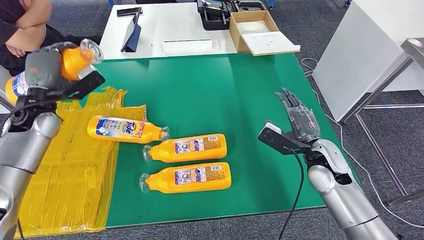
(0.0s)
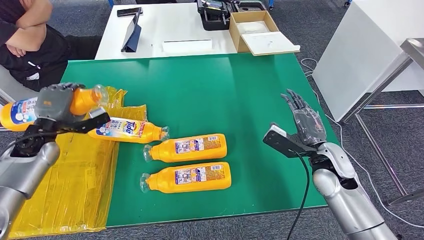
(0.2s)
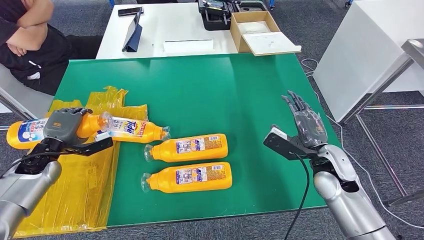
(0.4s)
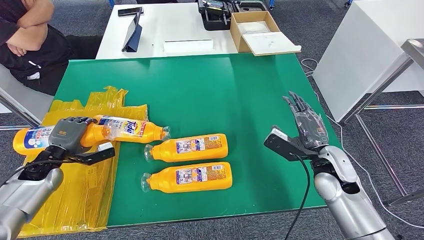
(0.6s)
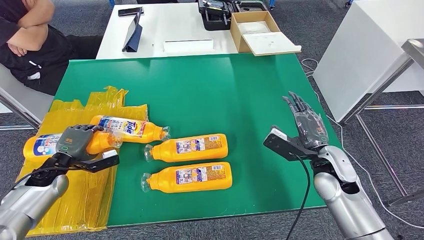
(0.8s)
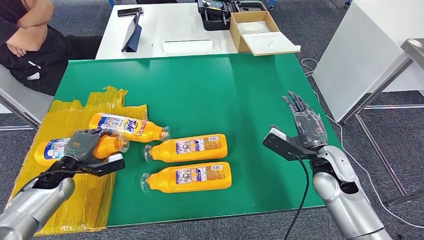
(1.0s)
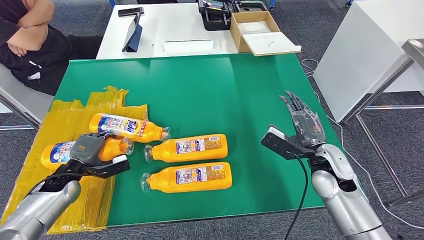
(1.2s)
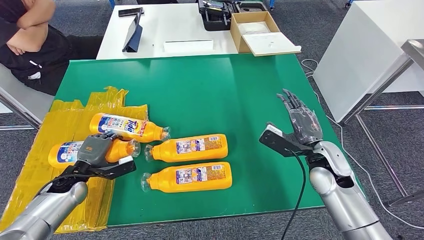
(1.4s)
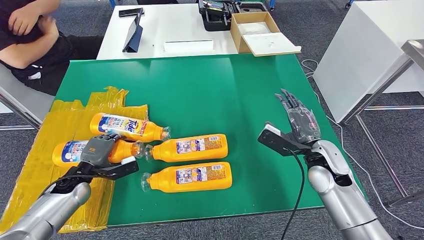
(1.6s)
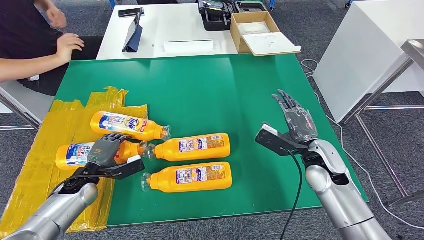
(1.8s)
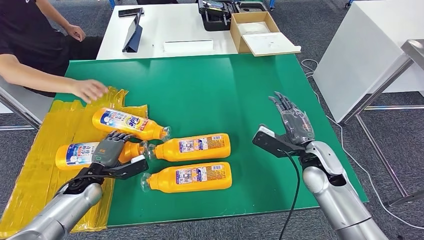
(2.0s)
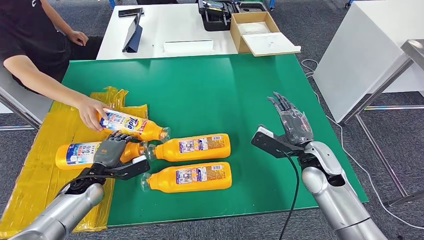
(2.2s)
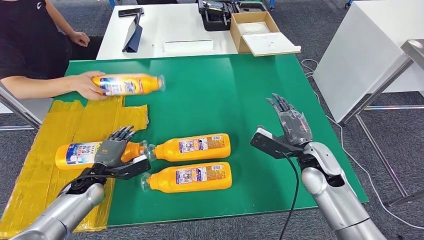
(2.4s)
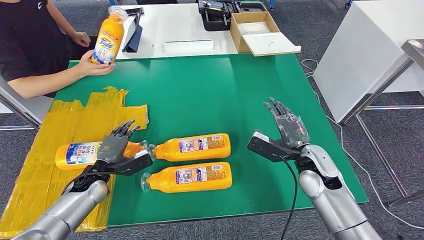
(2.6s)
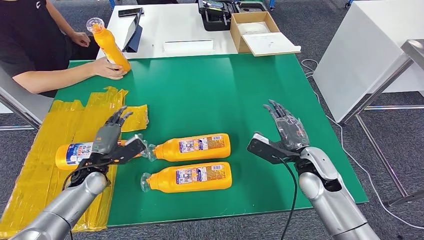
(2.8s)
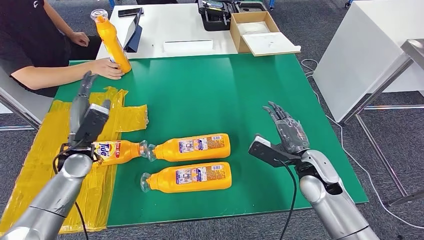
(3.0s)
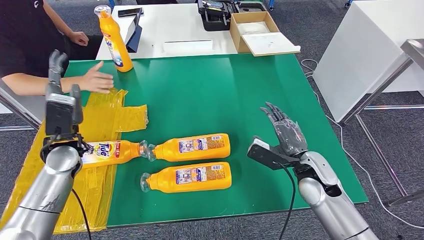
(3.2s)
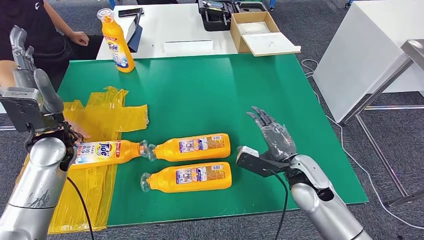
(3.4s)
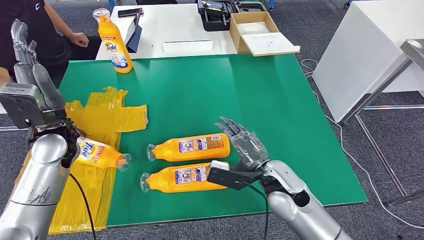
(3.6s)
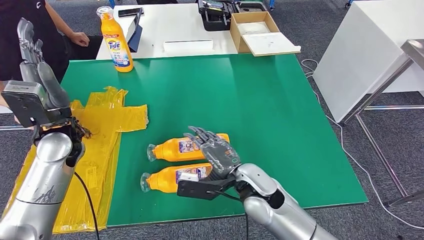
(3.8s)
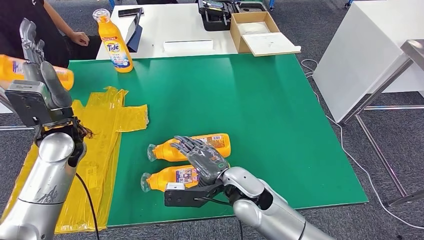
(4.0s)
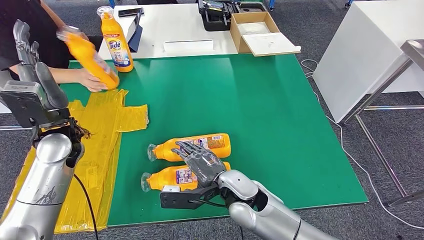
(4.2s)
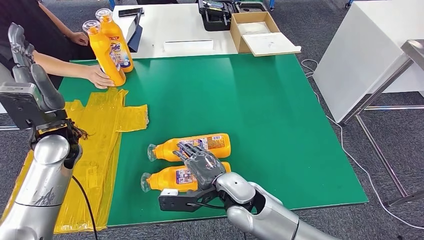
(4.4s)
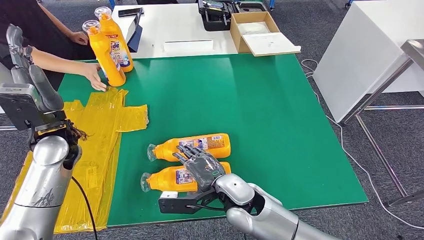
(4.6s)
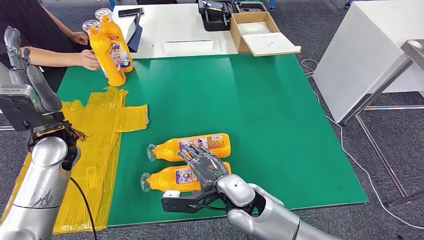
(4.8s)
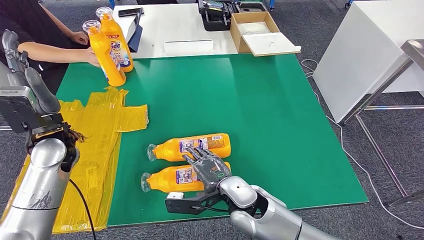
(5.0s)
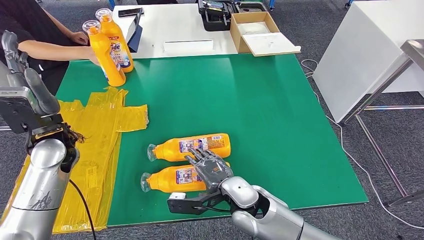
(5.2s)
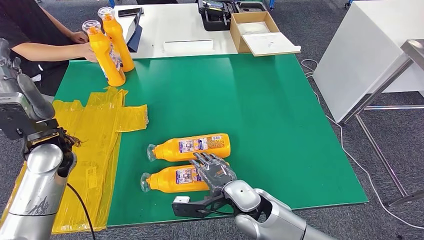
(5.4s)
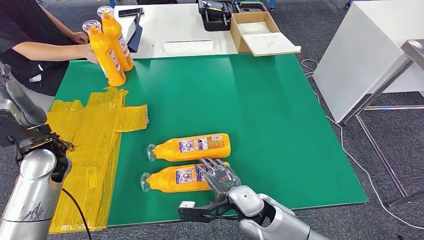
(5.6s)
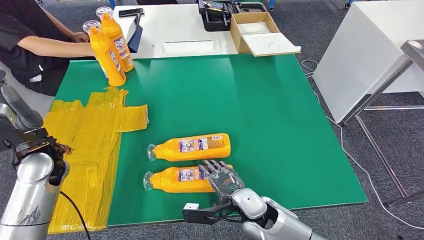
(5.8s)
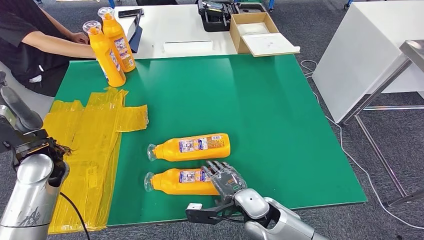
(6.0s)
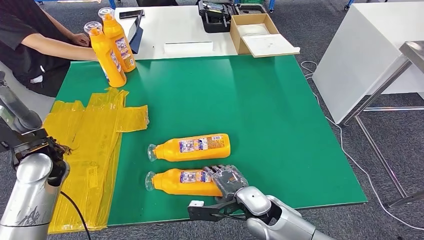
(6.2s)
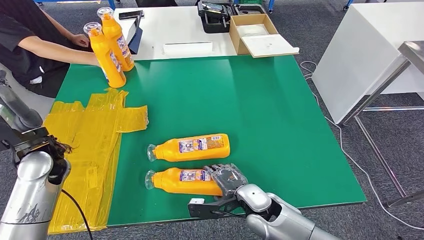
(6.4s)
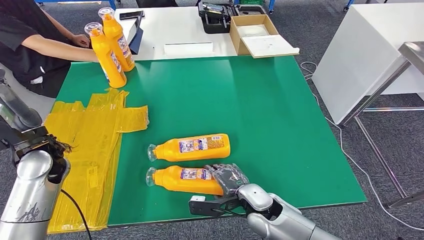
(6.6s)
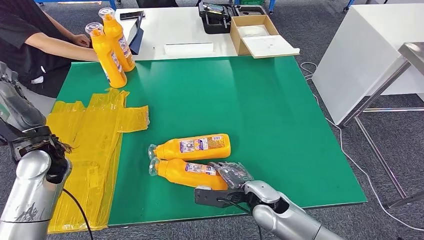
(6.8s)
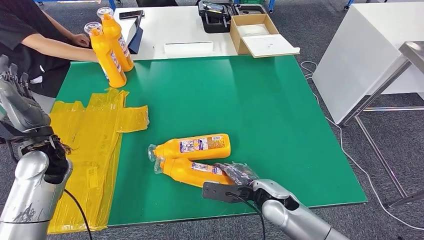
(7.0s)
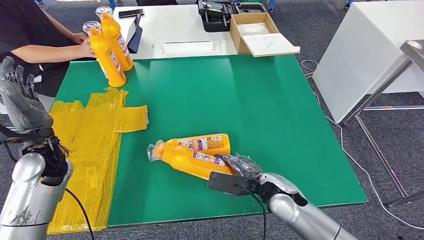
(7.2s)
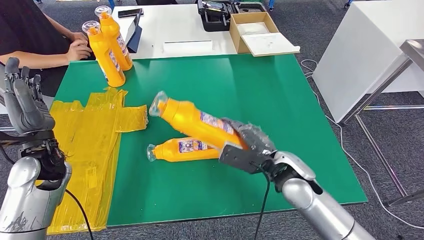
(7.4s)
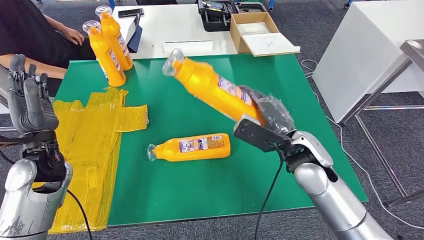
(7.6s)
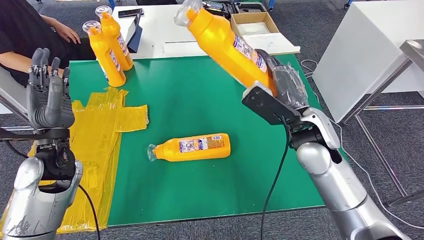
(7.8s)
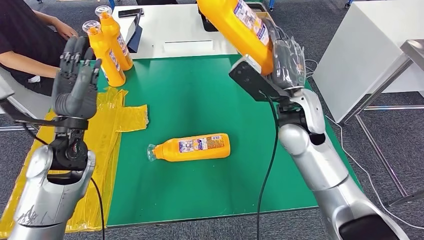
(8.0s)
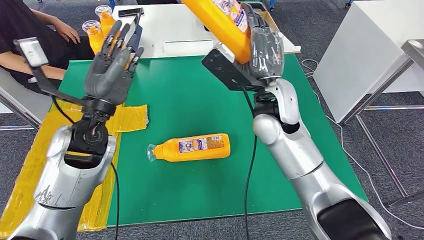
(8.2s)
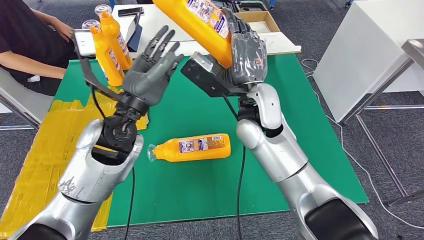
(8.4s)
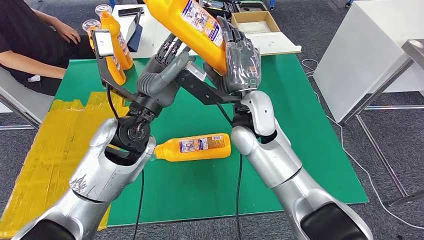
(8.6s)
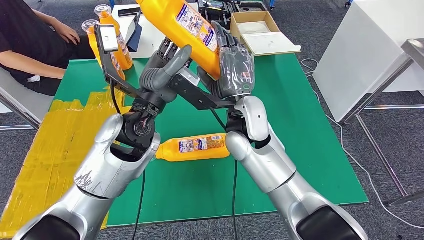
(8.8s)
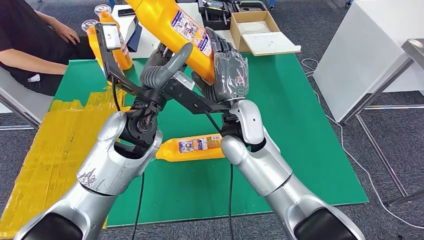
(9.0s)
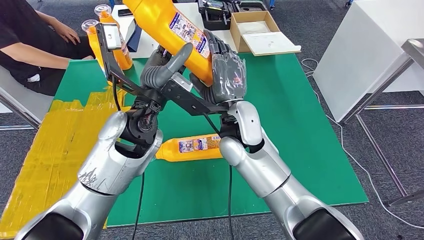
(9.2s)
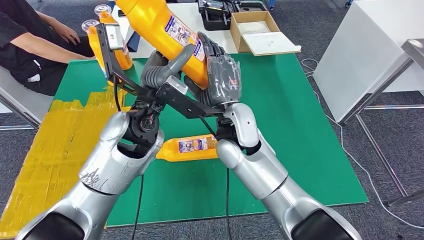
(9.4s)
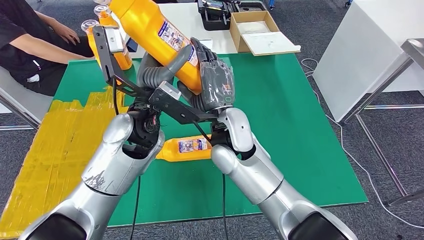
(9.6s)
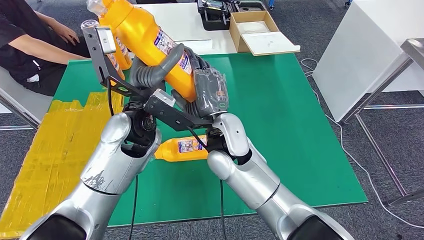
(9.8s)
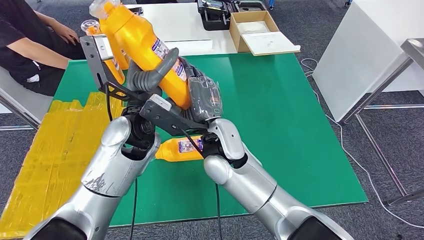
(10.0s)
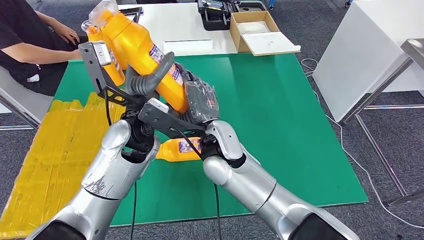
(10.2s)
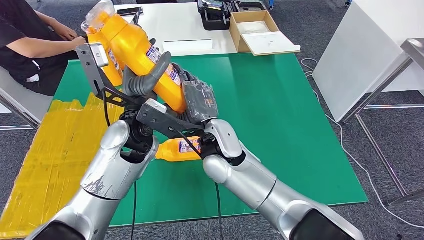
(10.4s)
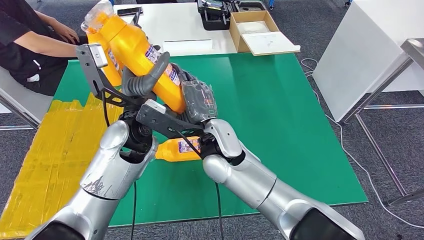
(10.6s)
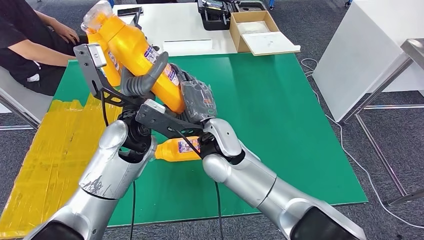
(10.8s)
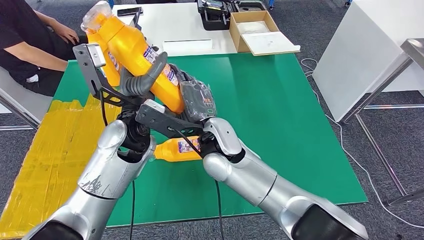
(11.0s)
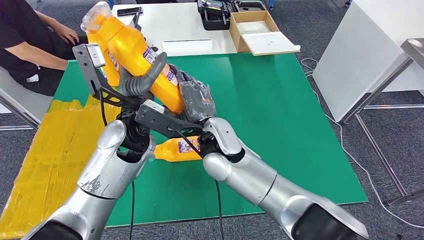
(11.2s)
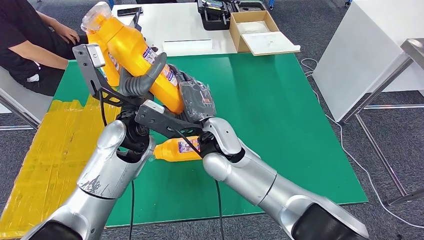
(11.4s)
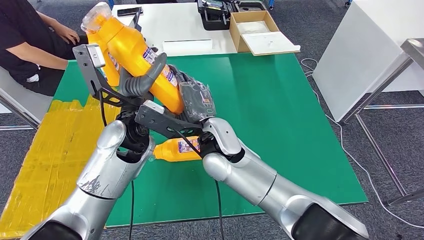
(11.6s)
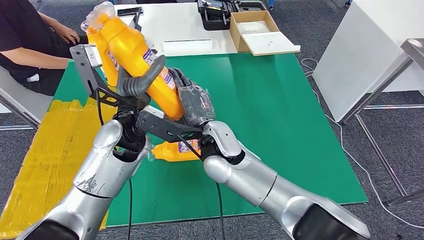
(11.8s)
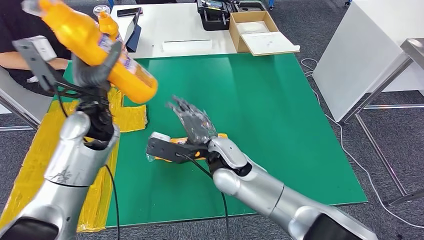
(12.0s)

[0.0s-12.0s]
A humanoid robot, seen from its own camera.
Step, 0.0s to 2.6s: Flip the fast-moving consumer goods bottle to the front side.
Step, 5.8s to 10.8s: Pick up the fast-moving consumer goods bottle from the table.

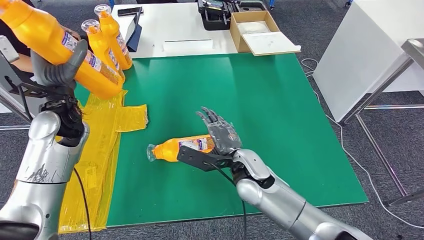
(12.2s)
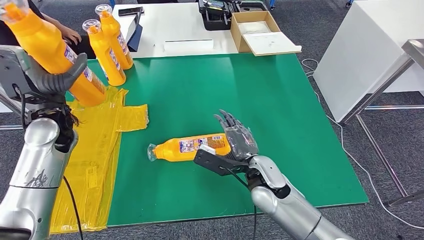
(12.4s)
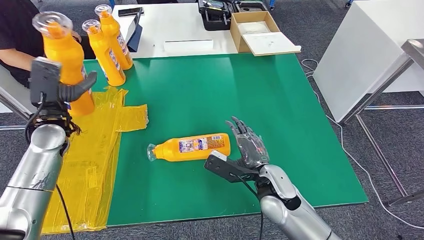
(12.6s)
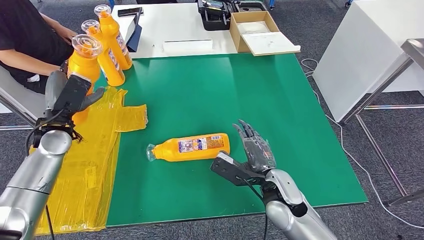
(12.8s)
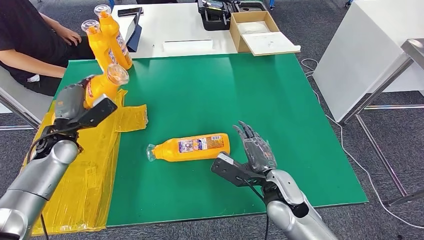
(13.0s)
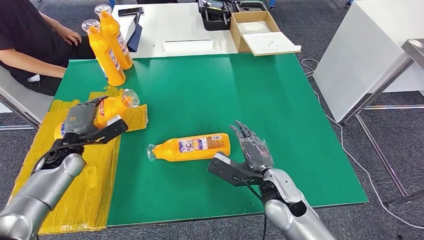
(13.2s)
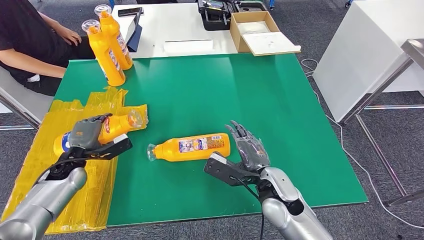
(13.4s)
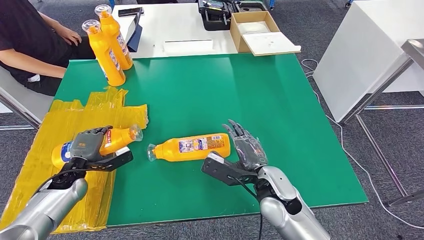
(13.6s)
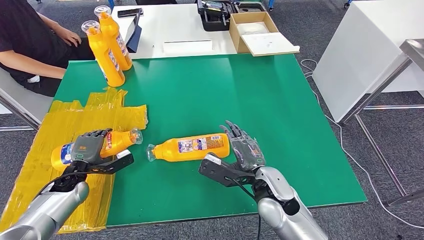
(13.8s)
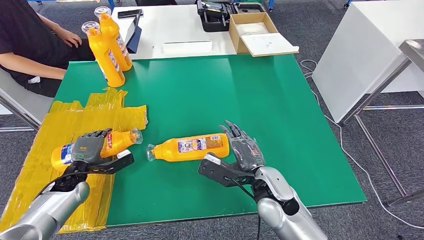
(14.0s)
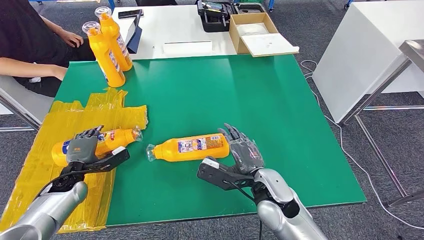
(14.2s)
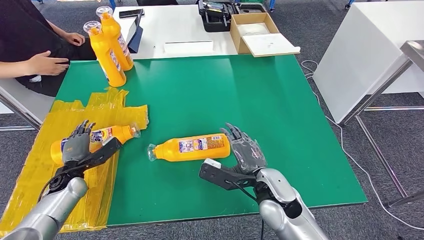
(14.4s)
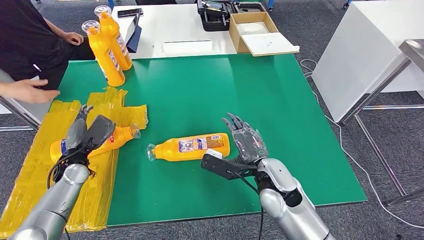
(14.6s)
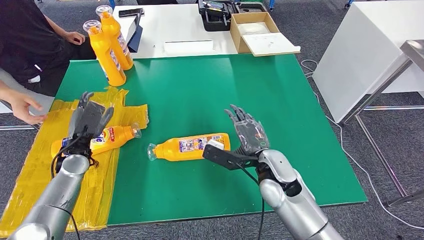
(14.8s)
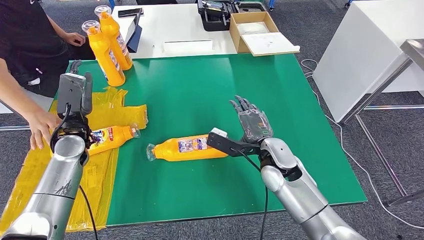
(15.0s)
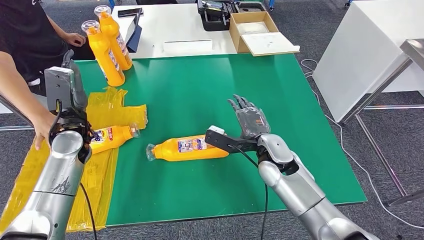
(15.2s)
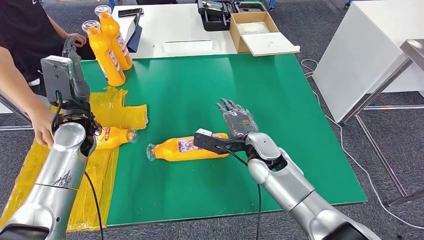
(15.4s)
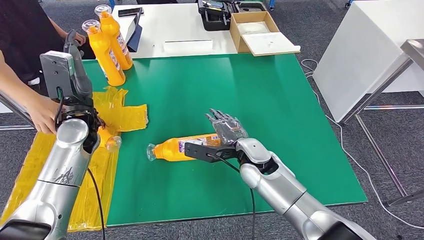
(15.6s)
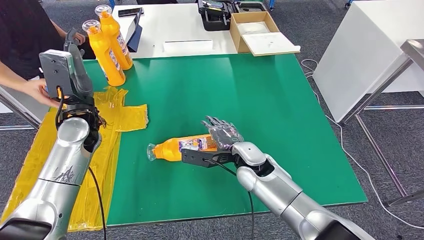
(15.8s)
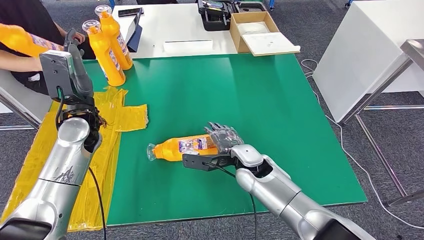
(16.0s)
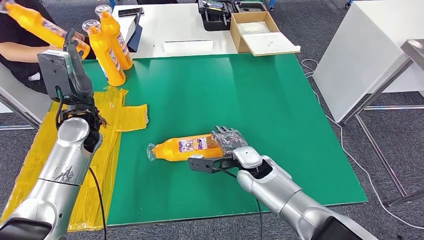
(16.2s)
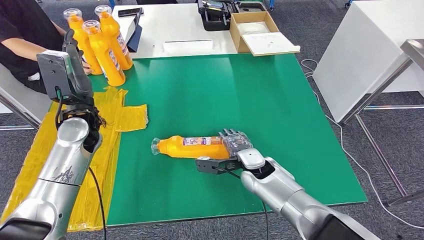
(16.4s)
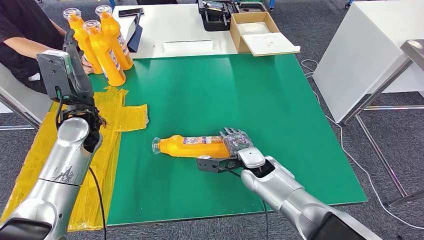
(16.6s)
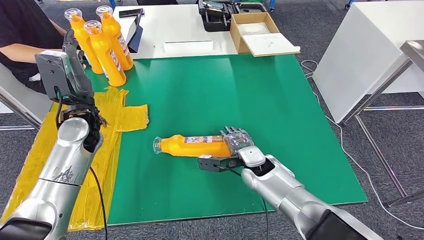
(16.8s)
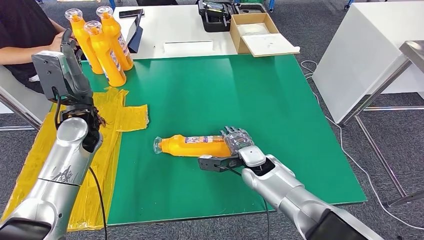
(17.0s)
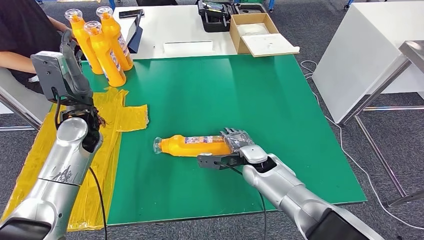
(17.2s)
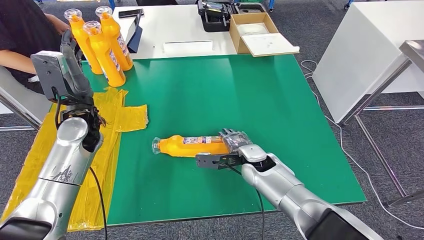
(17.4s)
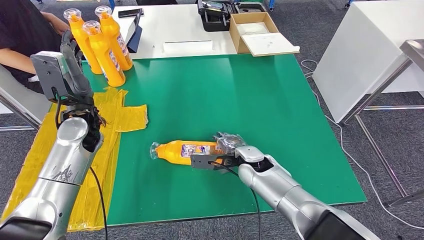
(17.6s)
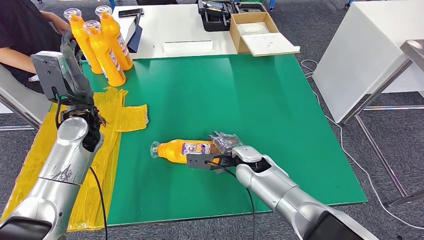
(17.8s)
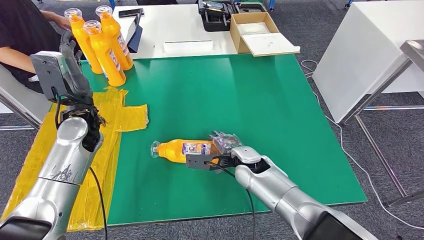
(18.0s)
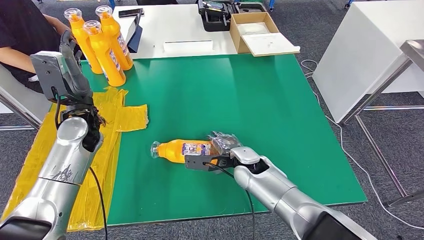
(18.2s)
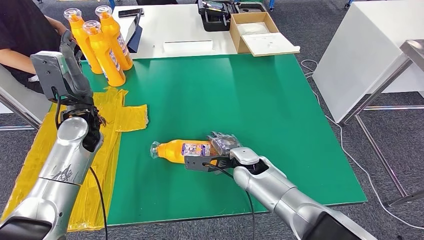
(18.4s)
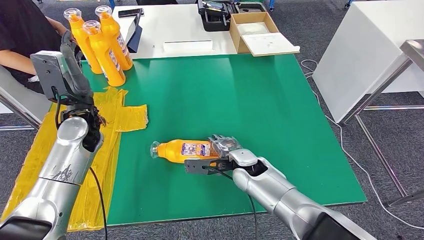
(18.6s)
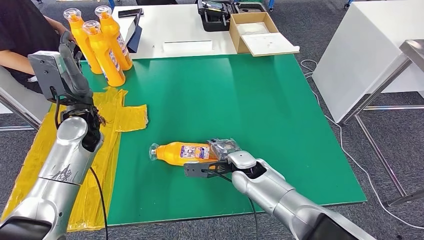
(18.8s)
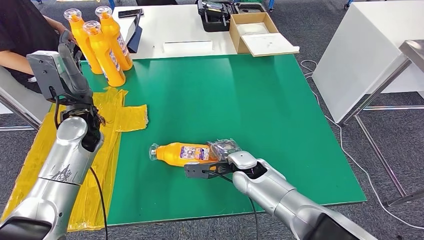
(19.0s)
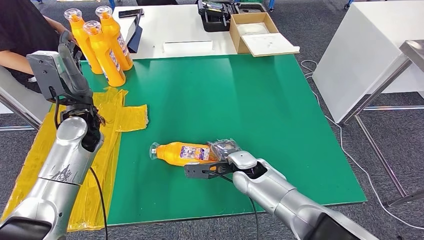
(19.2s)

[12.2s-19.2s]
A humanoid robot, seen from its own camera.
Step, 12.2s to 15.2s: Flip the fast-moving consumer goods bottle to the front side.
15.0s to 16.4s: The left hand shifts approximately 5 cm upward. Meanwhile the right hand moves downward, roughly 5 cm.
16.4s to 19.2s: There are only small adjustments of the hands.
